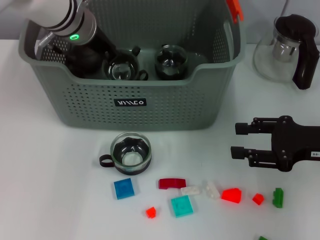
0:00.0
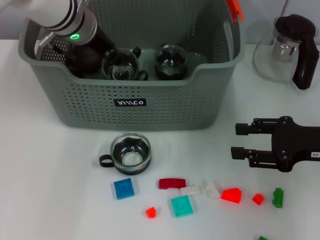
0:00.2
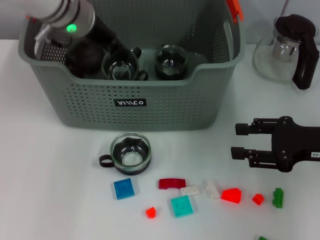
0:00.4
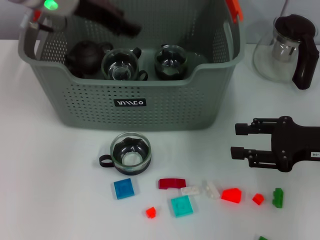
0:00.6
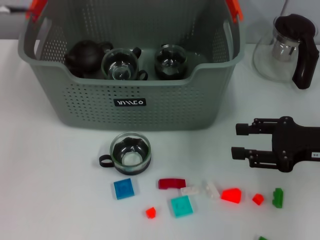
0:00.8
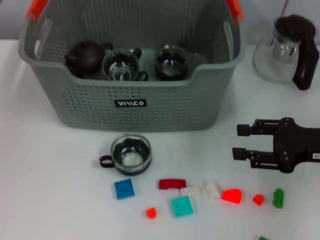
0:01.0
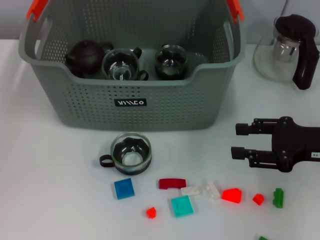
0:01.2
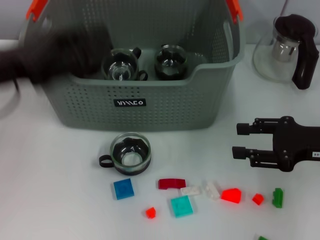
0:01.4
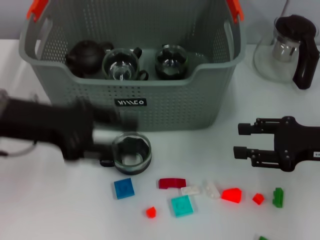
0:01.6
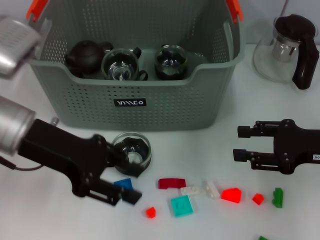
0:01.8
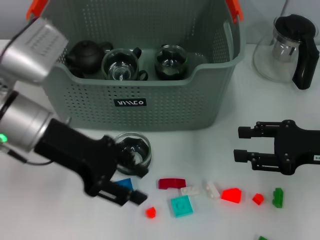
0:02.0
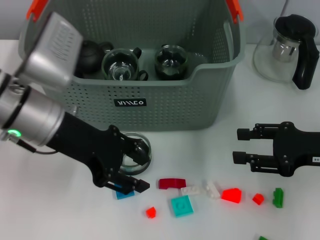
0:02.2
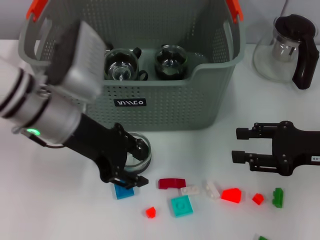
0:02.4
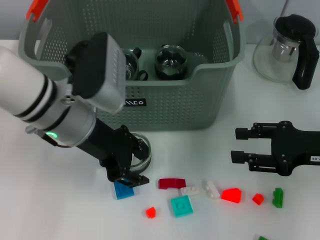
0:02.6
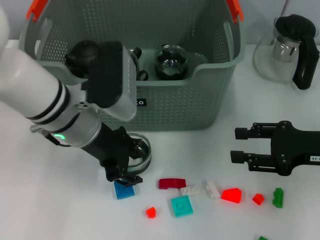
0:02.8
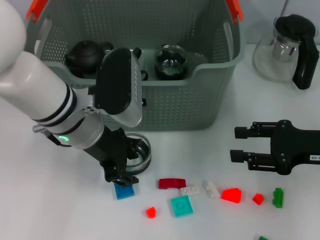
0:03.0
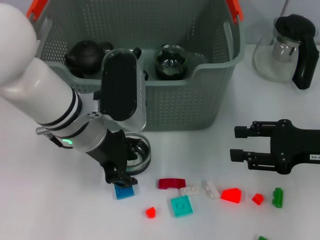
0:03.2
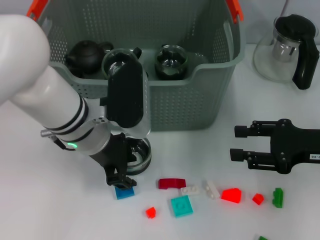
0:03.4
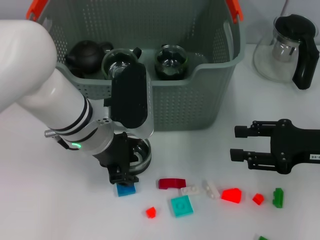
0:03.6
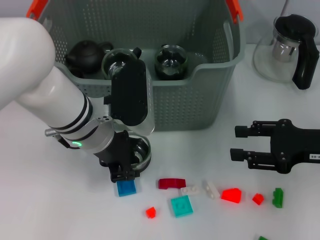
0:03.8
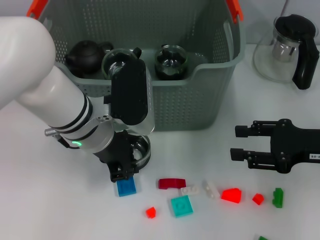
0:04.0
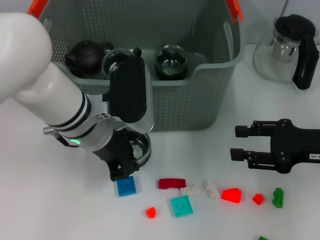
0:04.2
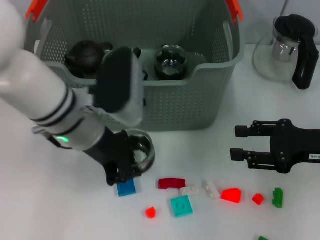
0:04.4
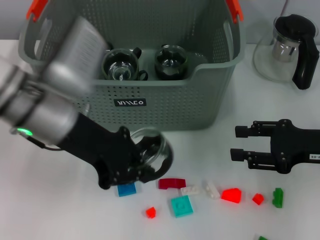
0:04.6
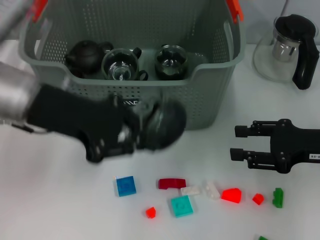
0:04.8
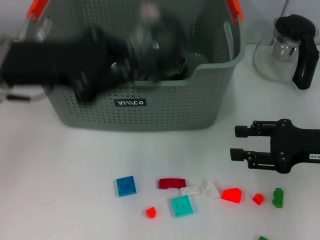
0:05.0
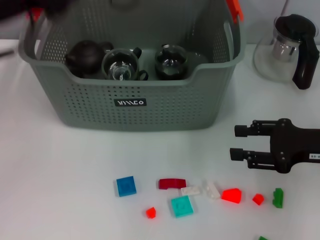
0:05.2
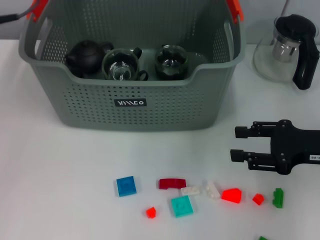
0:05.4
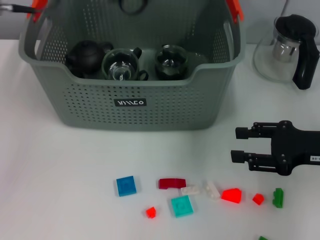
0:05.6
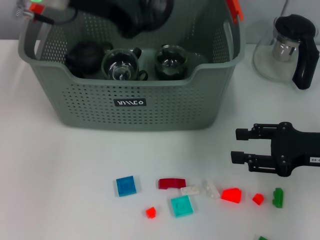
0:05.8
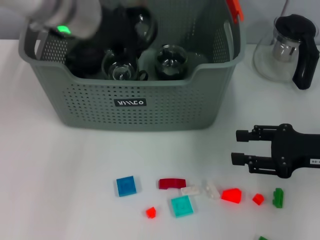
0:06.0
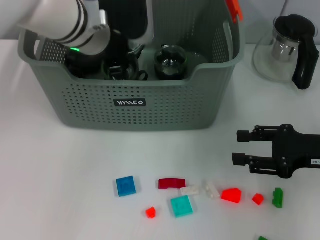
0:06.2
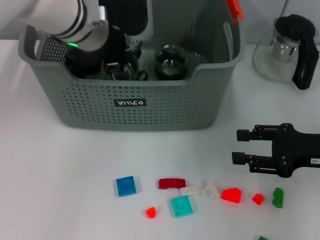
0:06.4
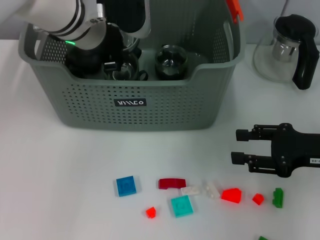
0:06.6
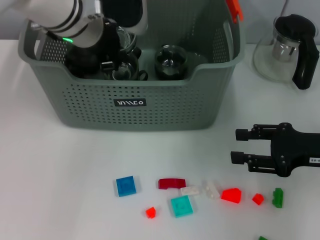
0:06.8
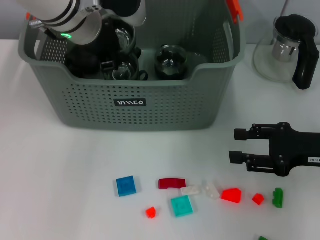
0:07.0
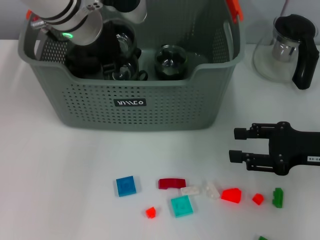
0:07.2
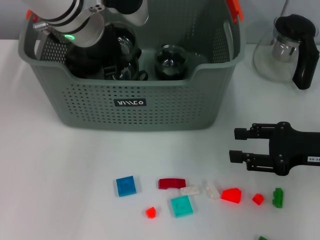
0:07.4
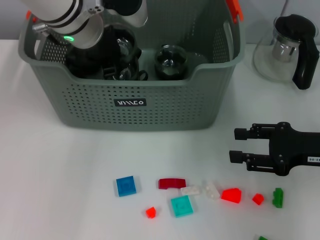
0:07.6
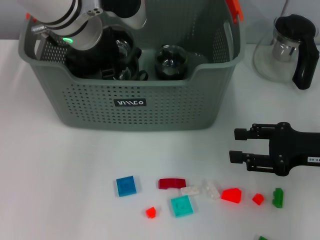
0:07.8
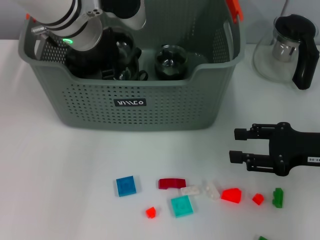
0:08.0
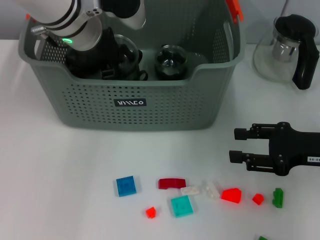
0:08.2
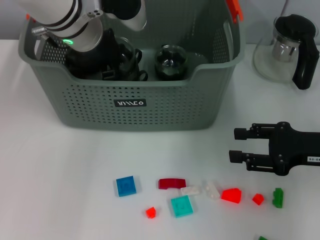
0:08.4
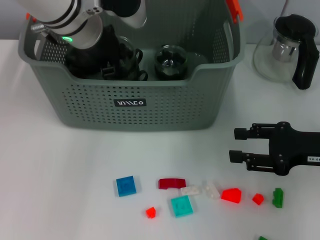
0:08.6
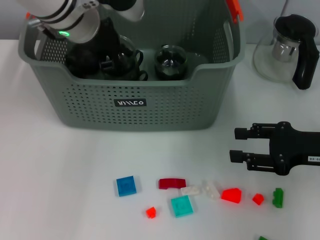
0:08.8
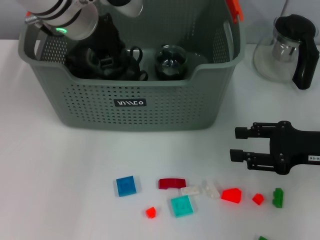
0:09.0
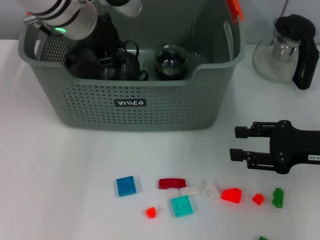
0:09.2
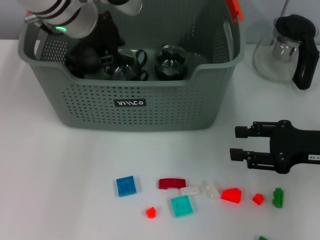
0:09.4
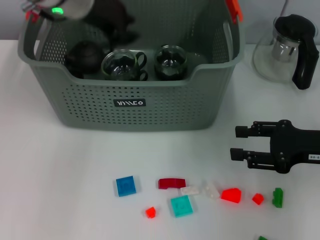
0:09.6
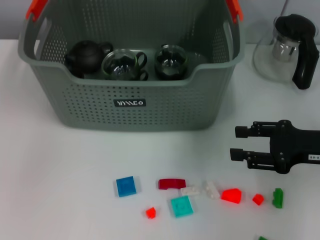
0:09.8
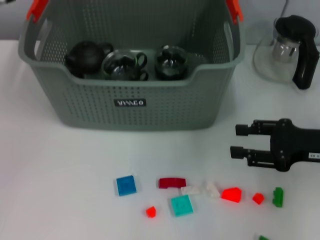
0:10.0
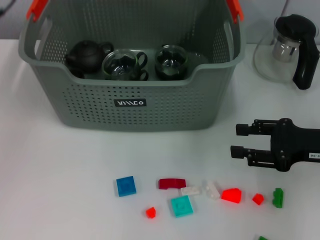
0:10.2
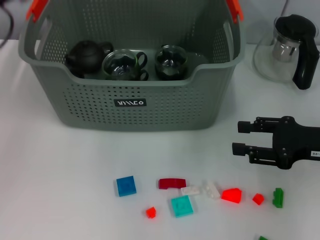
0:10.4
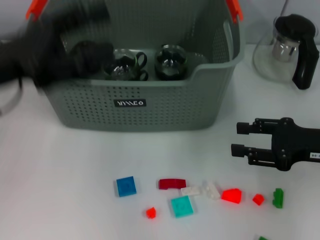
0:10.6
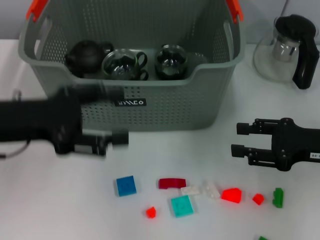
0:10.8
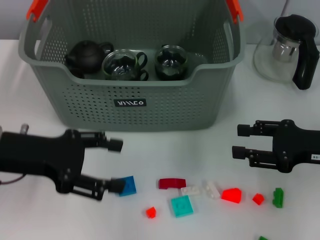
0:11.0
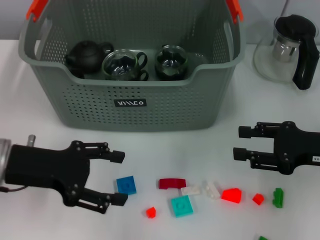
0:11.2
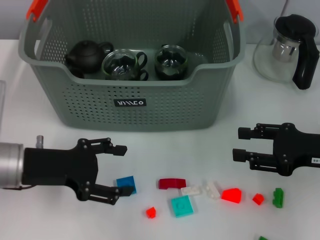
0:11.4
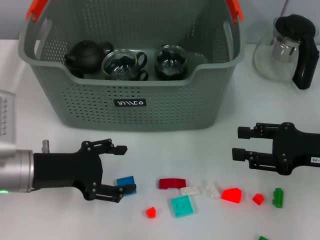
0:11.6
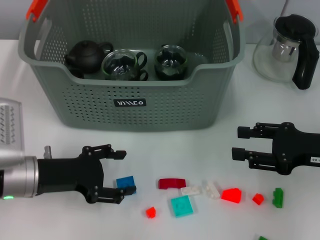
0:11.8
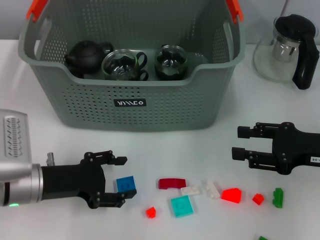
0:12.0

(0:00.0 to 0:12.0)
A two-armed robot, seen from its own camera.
Task of the whole recording: pick up the teacup on the table and place it into the storage bin, pick up the block on the table and place it into the storage bin.
Step, 0:01.2 - 0:04.0: Grasp the cup with left gripper.
0:00.0 - 0:01.6: The left gripper goes roughly 20 cm backward and to the left, and opens.
0:01.6 - 0:03.0: The left gripper heads to the right, covering roughly 10 cm.
0:03.0 - 0:04.4: The left gripper closes.
0:04.4 - 0:06.0: The left gripper heads upward and forward, covering about 10 cm.
0:06.0 - 0:09.0: The grippers make only small movements.
0:09.0 - 0:10.4: The left gripper heads to the left and backward, covering approximately 15 cm.
0:10.4 - 0:12.0: The left gripper goes approximately 20 cm downward.

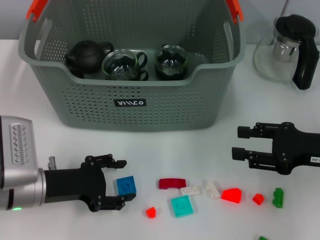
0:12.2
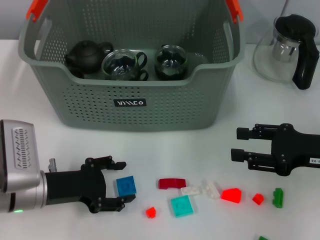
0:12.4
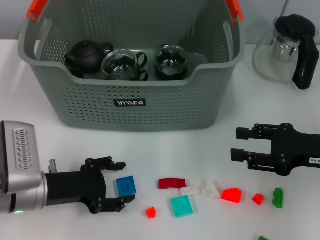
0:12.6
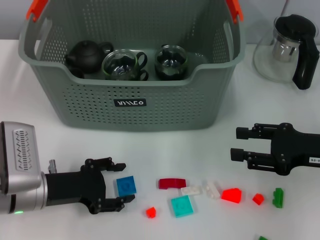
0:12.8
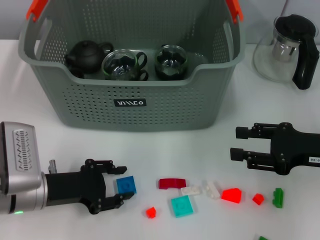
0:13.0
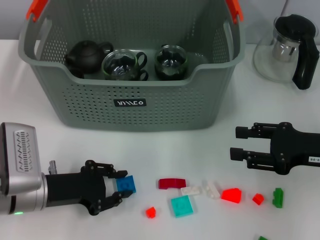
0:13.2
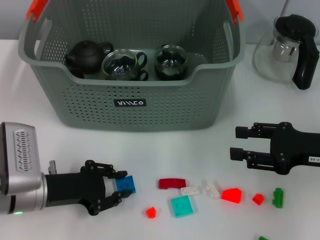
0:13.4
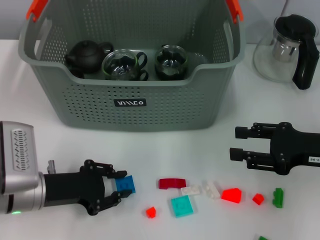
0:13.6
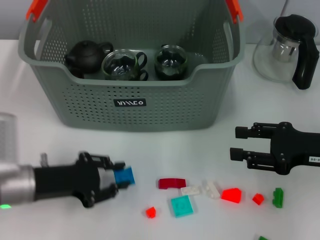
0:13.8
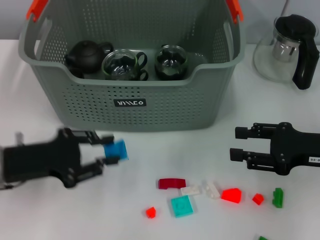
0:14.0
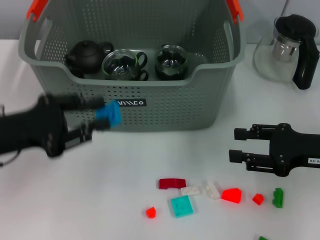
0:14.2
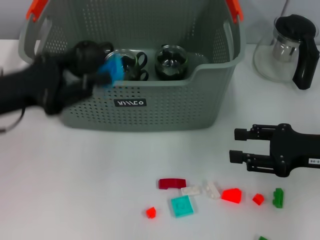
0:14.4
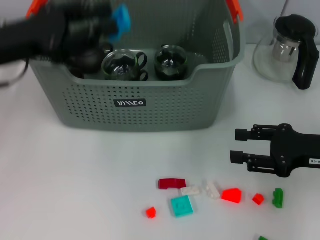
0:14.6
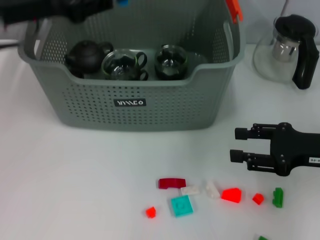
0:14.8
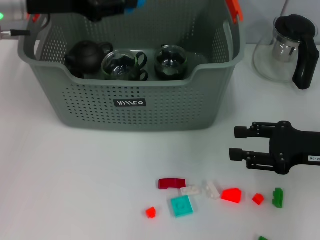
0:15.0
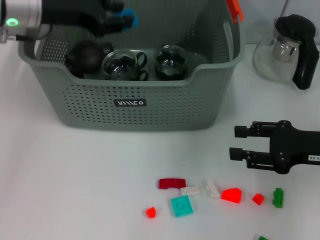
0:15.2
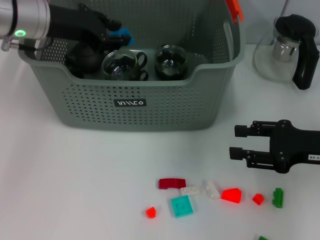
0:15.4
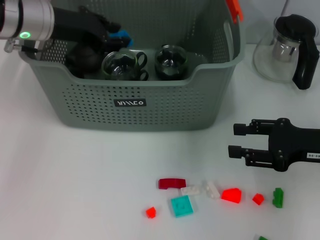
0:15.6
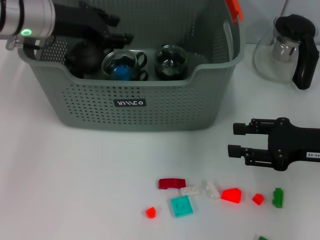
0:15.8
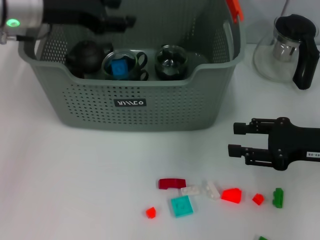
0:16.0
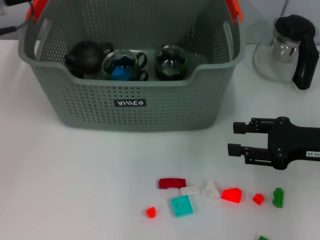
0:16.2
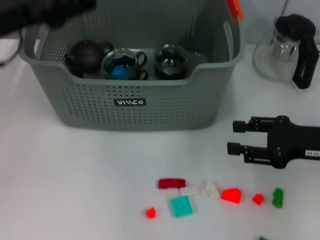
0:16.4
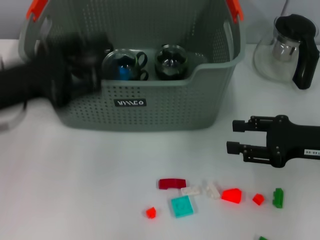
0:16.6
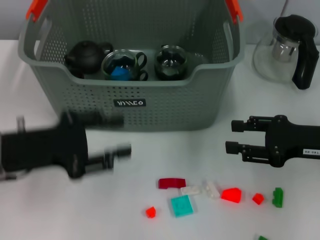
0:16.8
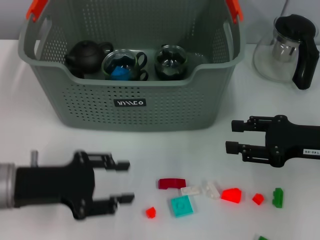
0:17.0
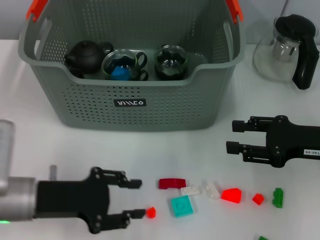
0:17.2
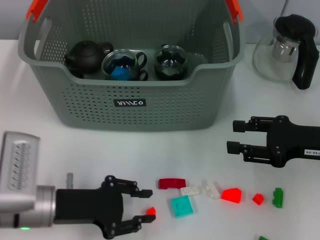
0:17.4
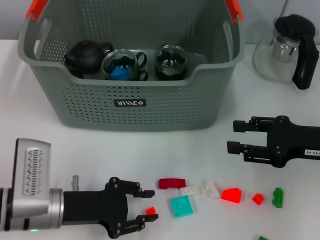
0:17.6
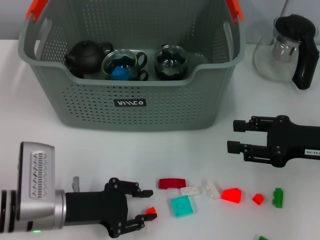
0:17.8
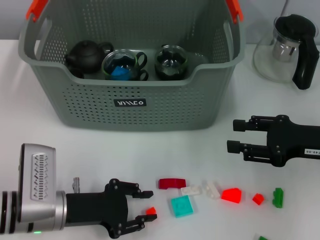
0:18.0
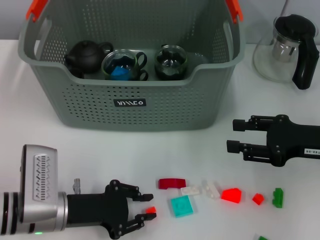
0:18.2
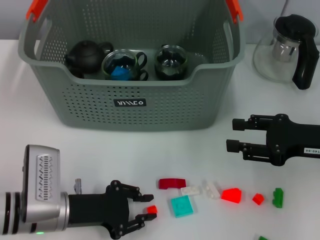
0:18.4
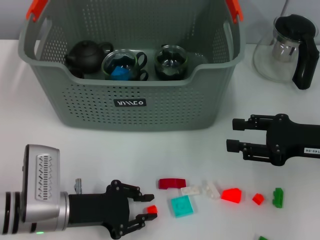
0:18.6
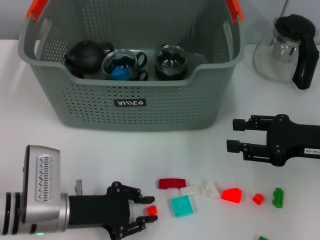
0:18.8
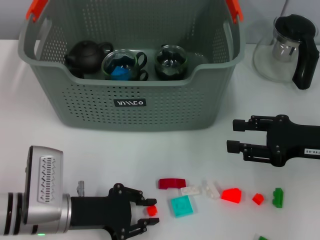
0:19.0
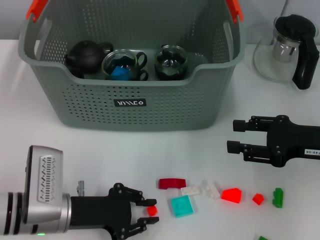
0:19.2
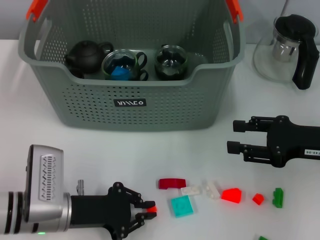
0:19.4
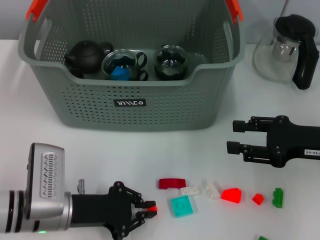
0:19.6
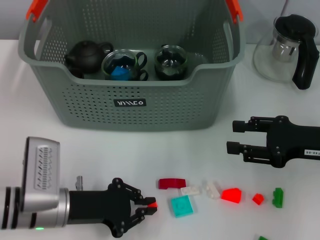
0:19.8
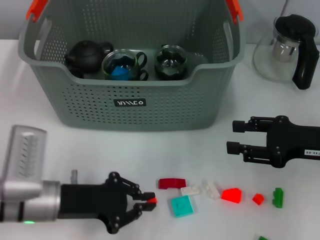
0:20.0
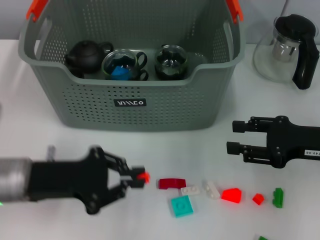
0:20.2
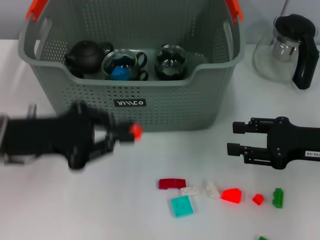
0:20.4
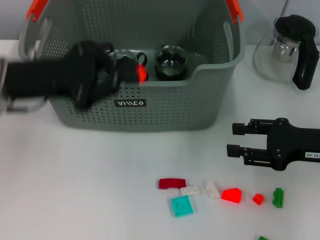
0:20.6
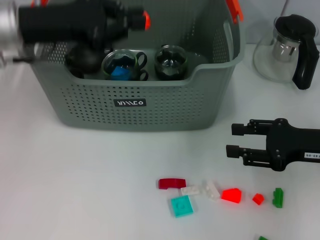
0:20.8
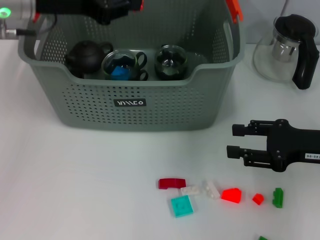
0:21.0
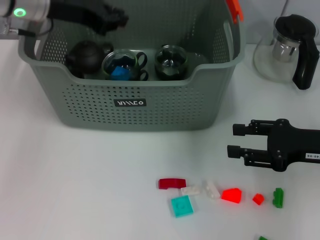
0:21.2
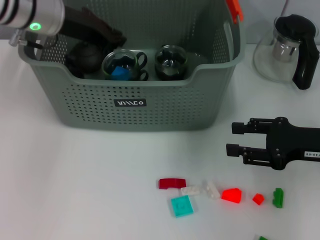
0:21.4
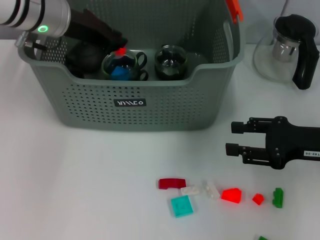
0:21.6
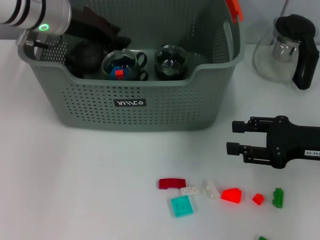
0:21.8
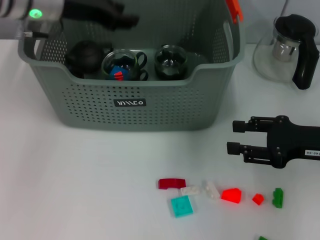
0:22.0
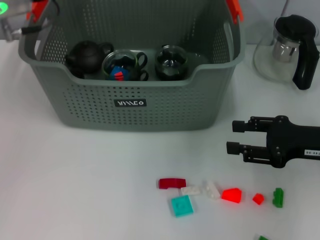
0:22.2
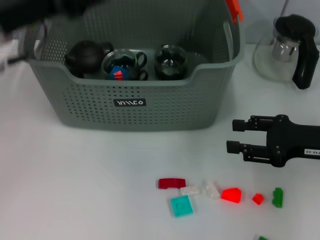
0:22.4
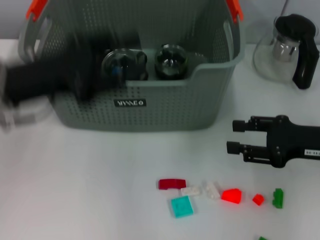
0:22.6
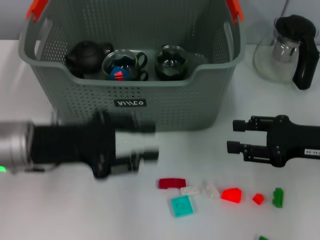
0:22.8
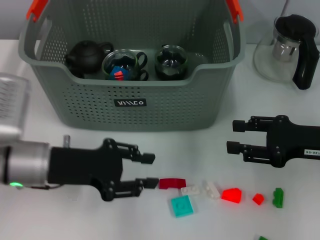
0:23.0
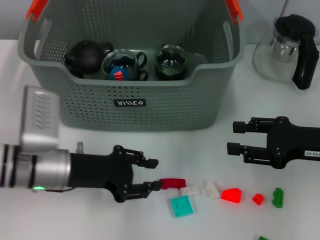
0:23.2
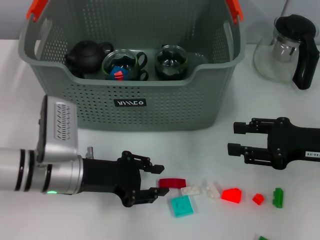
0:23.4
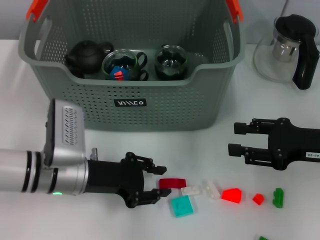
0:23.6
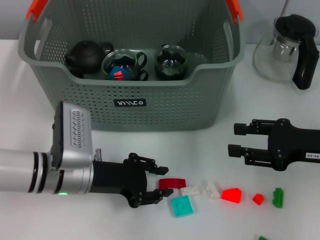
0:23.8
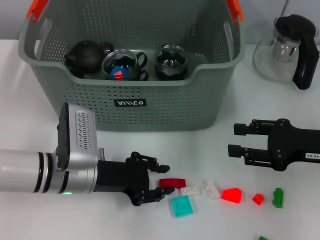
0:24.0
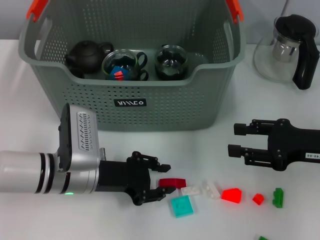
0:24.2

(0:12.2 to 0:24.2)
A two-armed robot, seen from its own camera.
Task of the whole recording: pick up the teacup on the table and place it into the storage bin, pick up the block on the table and place it into the storage bin.
Step, 0:13.8 - 0:16.0: Place the dark blue block in the storage box with left gripper.
Step, 0:16.2 - 0:19.6: Grasp the orange block with left gripper.
Step, 0:19.8 - 0:22.2: Place the orange block in the storage box with left gripper.
0:12.2 - 0:13.8: The left gripper closes its fingers.
0:13.8 - 0:15.2: The left gripper heads upward and forward, covering about 25 cm.
0:15.2 - 0:16.6: The left gripper is displaced backward by roughly 15 cm.
0:16.6 - 0:18.2: The left gripper moves downward, roughly 15 cm.
0:18.2 - 0:19.8: Neither gripper changes place.
0:19.8 - 0:21.2: The left gripper travels upward and forward by approximately 30 cm.
0:21.2 - 0:22.6: The left gripper is displaced backward and downward by some 15 cm, and opens up.
0:22.6 - 0:24.2: The left gripper is displaced downward and to the right by some 15 cm.
